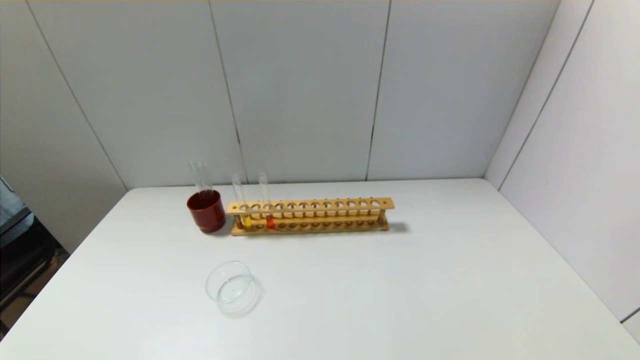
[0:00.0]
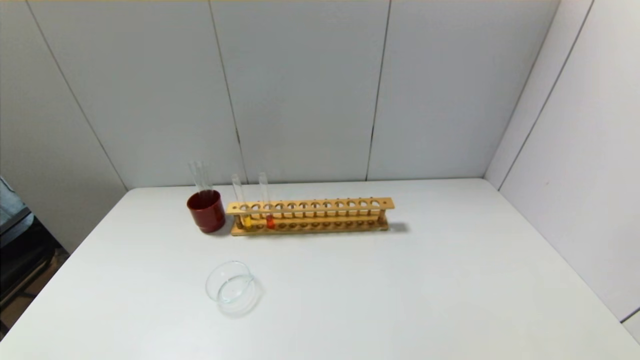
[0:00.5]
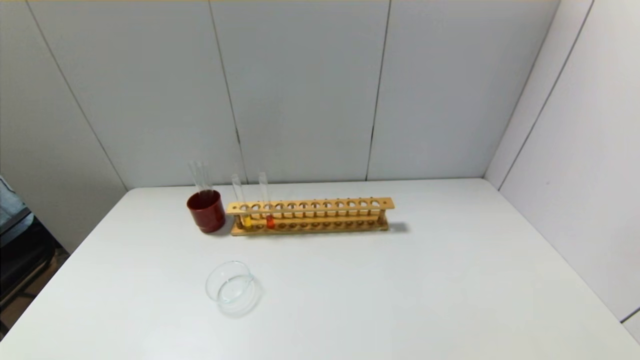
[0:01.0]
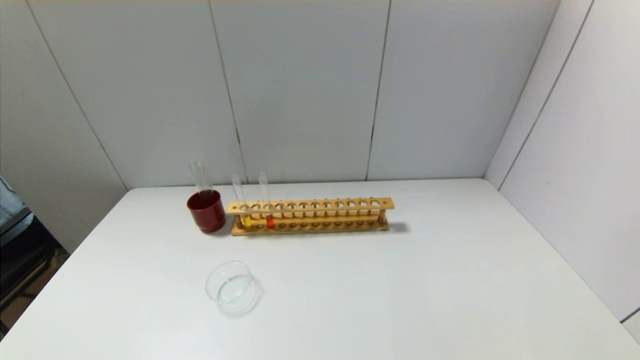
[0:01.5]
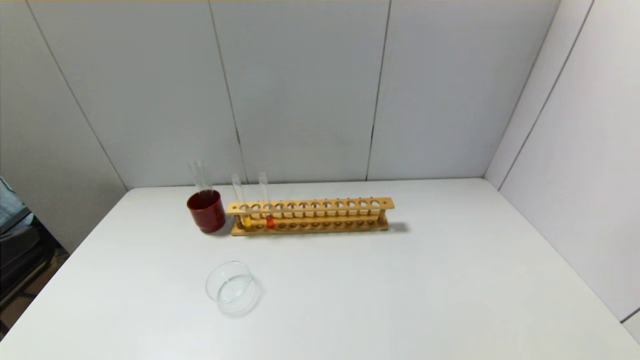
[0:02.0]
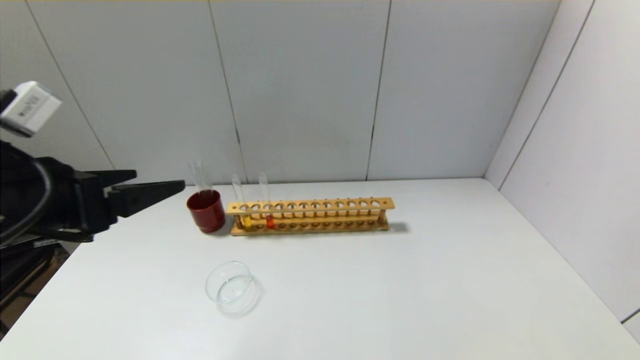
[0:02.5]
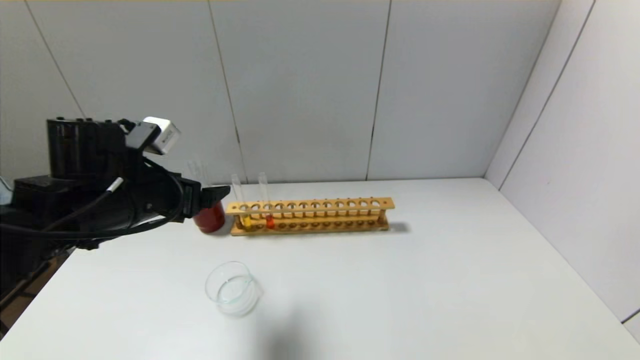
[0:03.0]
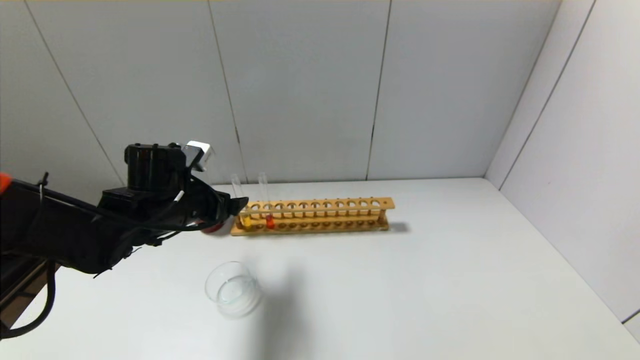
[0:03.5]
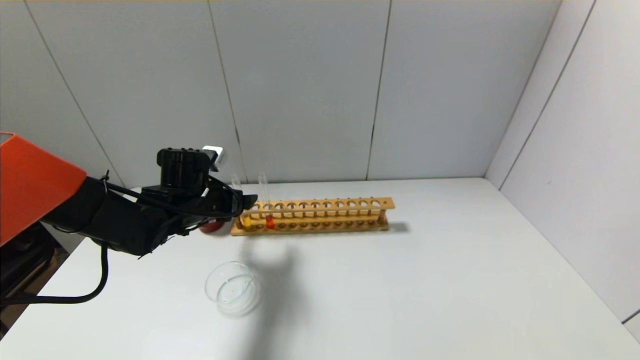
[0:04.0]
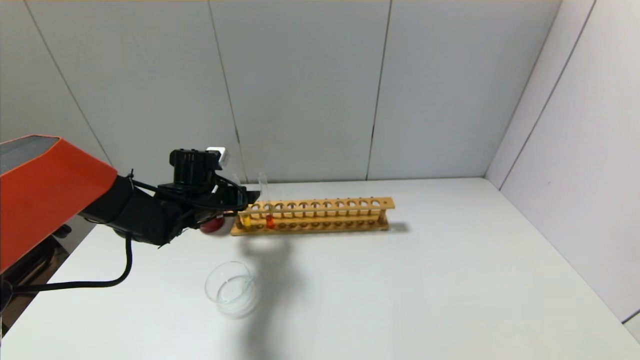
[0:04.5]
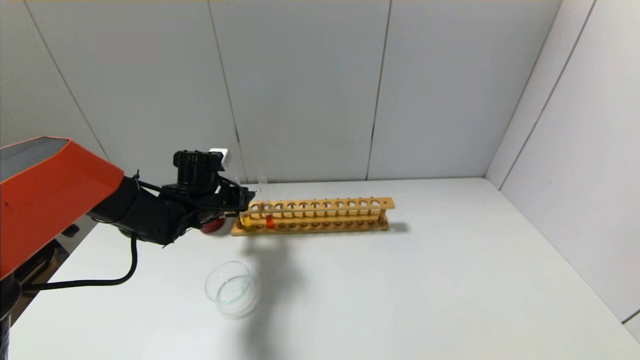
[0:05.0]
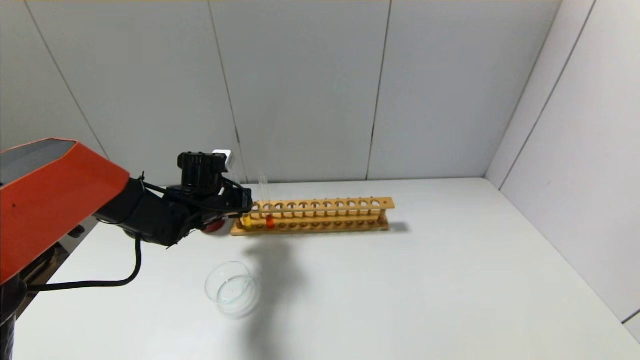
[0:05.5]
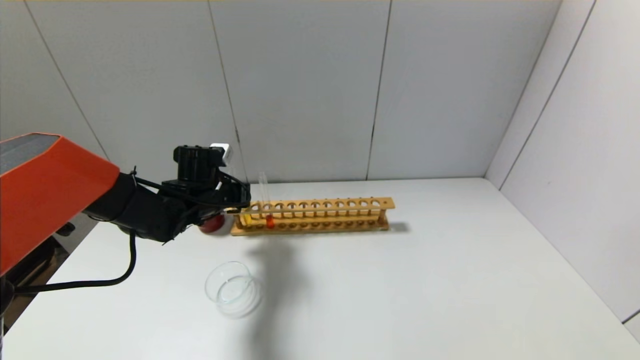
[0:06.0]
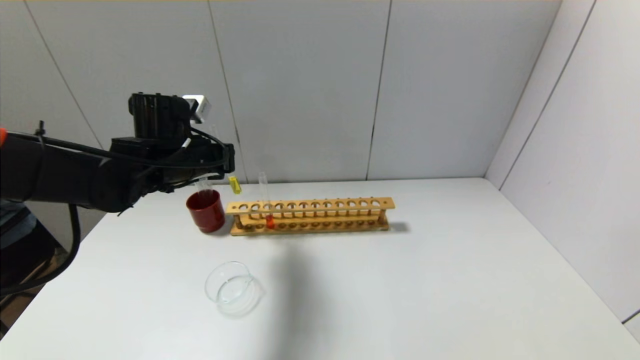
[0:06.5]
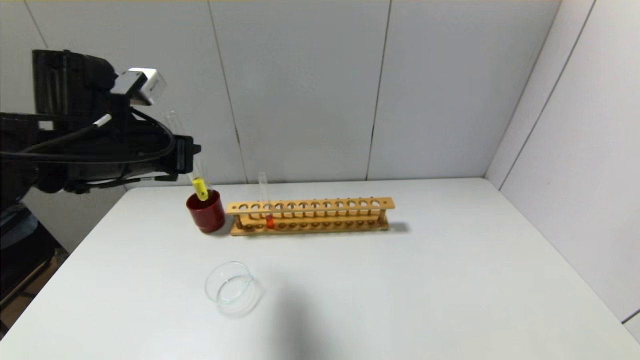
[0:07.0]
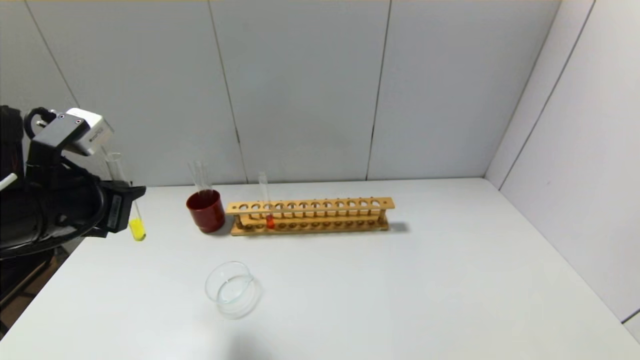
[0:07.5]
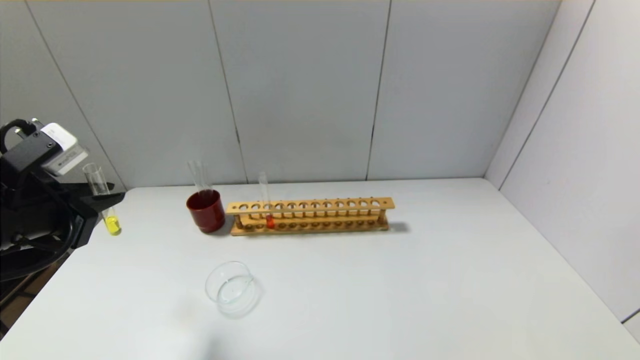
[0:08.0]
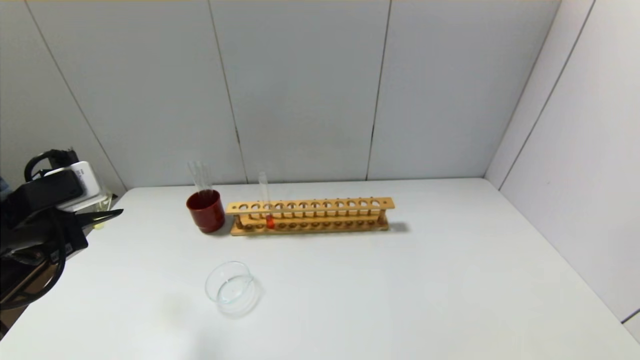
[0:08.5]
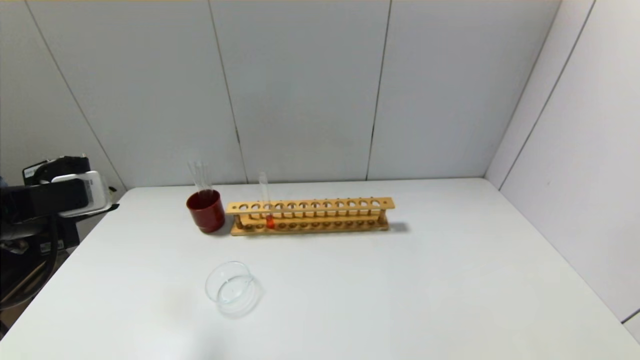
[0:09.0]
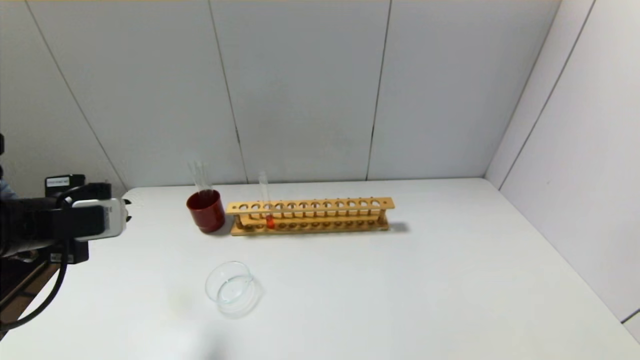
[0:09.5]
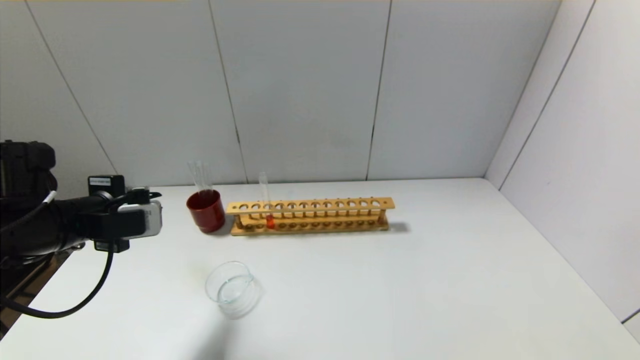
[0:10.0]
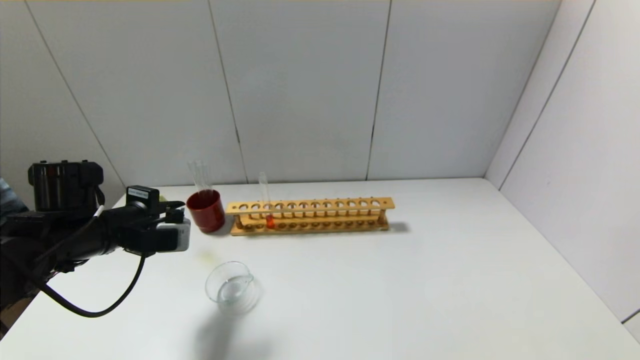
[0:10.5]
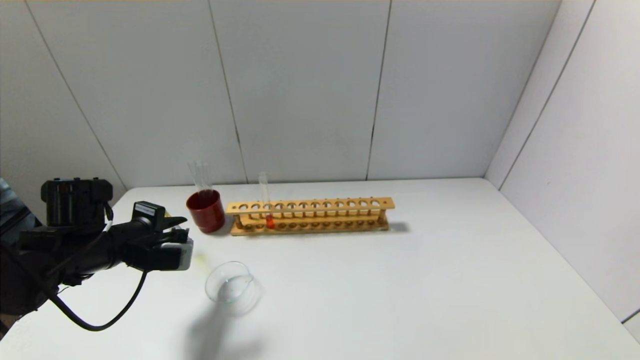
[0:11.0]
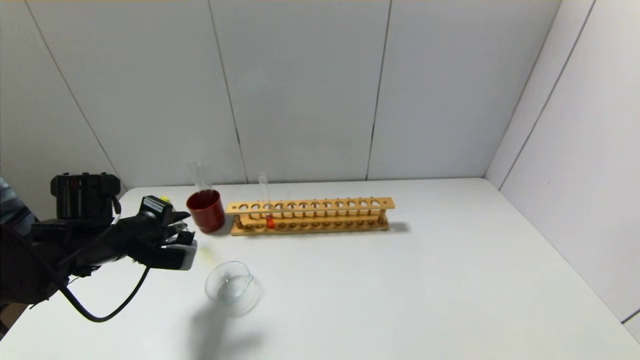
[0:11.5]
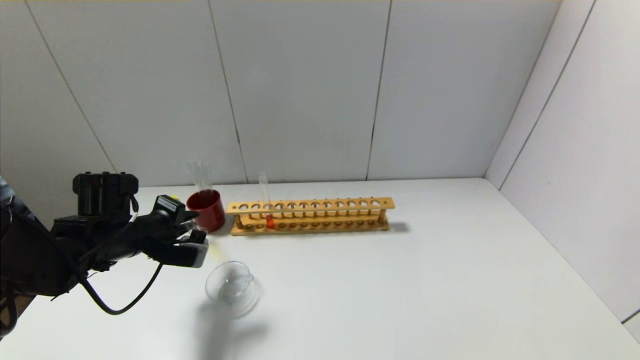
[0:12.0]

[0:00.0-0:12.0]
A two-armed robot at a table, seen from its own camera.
Step, 0:00.0 to 0:05.0: Grasp the yellow reagent with the left gripper.
0:02.0 to 0:04.0: The left gripper is displaced forward and downward by some 35 cm.
0:04.0 to 0:06.0: The left gripper closes up.
0:06.0 to 0:08.0: The left gripper goes roughly 25 cm backward, to the left and upward.
0:08.0 to 0:10.0: The left gripper moves approximately 5 cm.
0:10.0 to 0:12.0: The left gripper shifts roughly 10 cm downward and forward.

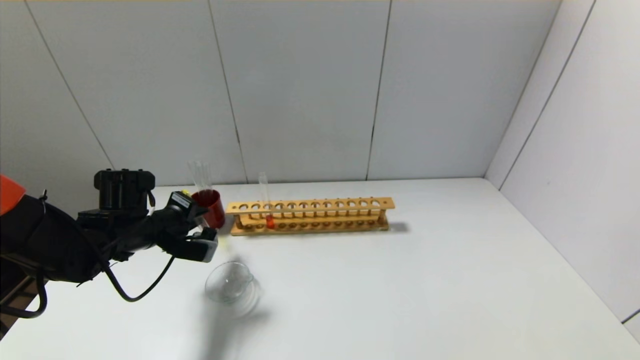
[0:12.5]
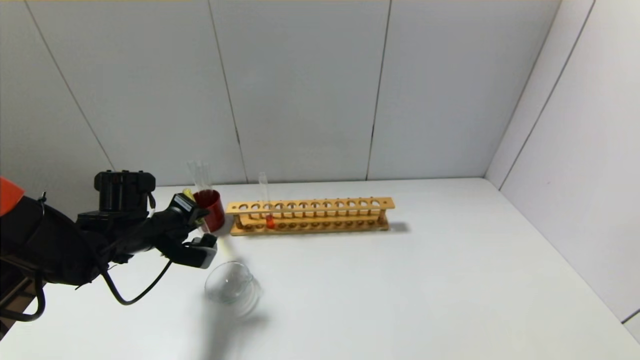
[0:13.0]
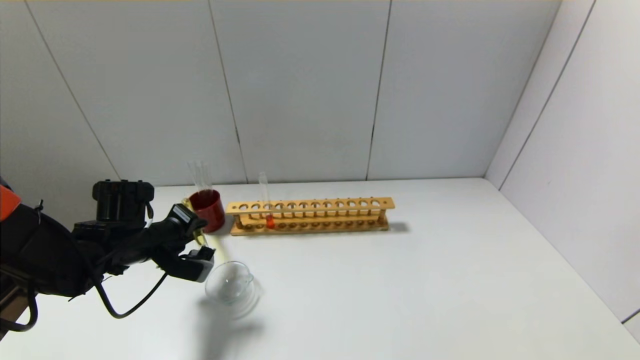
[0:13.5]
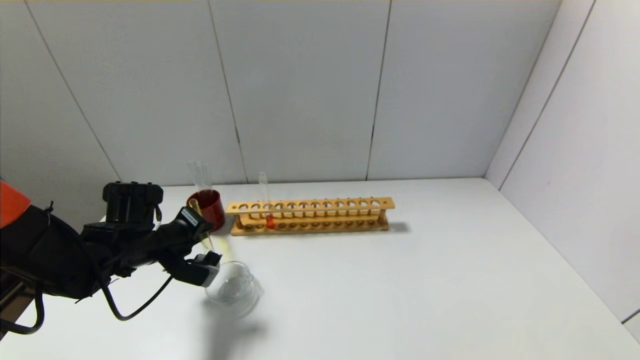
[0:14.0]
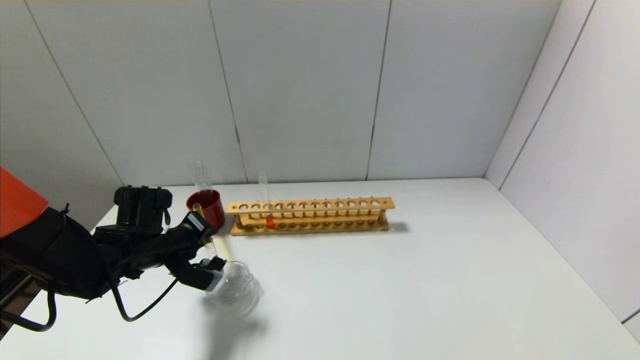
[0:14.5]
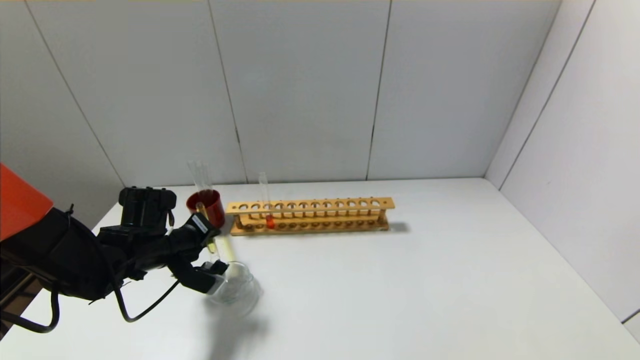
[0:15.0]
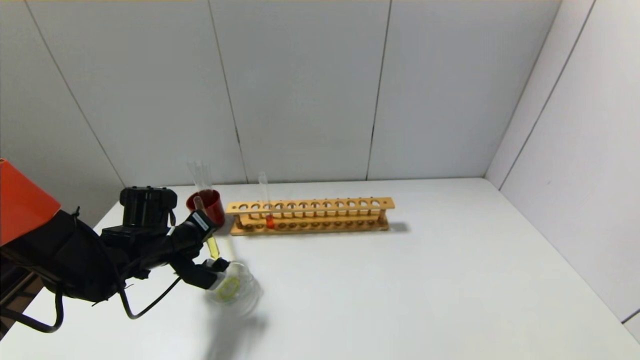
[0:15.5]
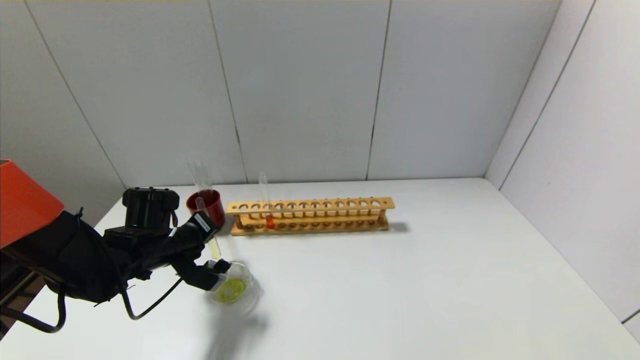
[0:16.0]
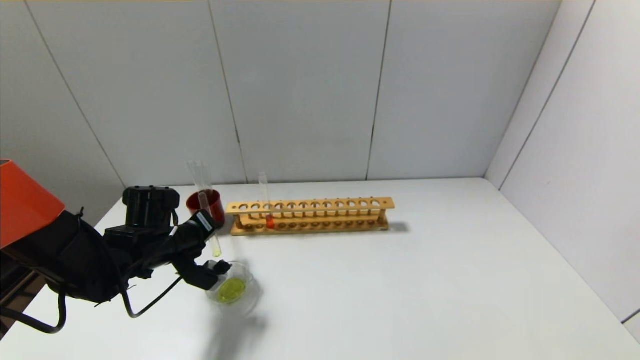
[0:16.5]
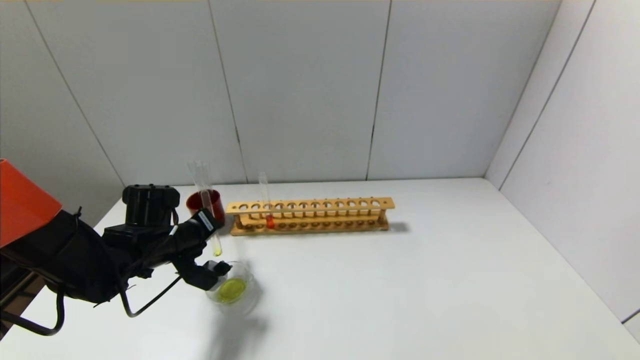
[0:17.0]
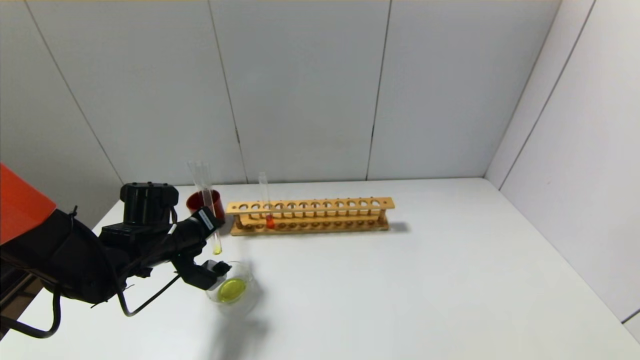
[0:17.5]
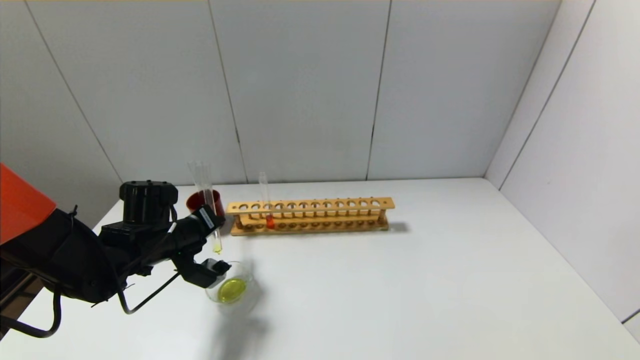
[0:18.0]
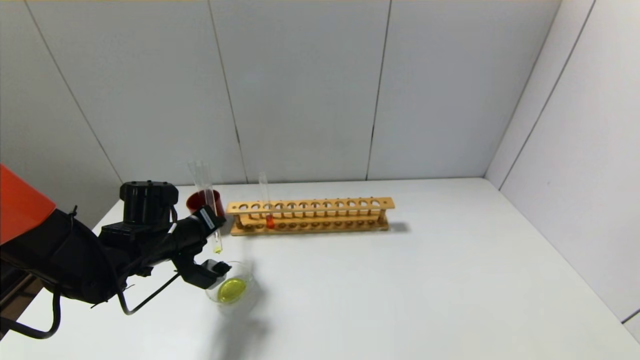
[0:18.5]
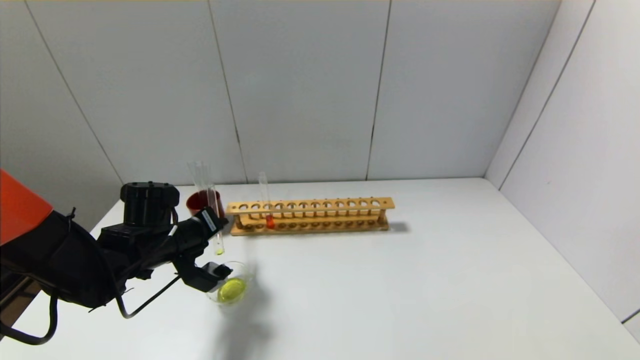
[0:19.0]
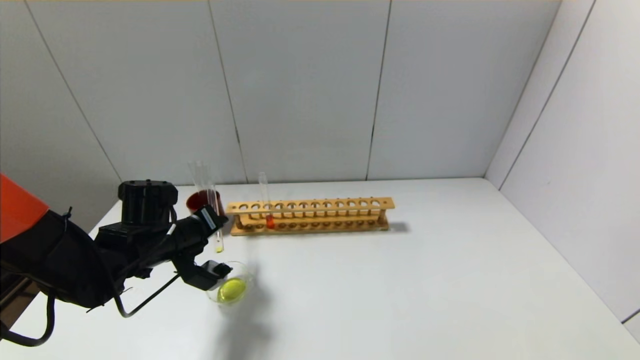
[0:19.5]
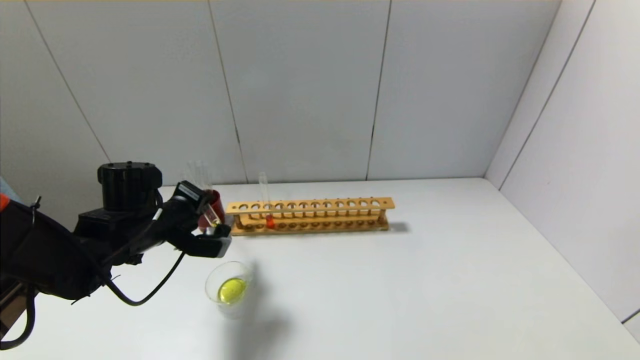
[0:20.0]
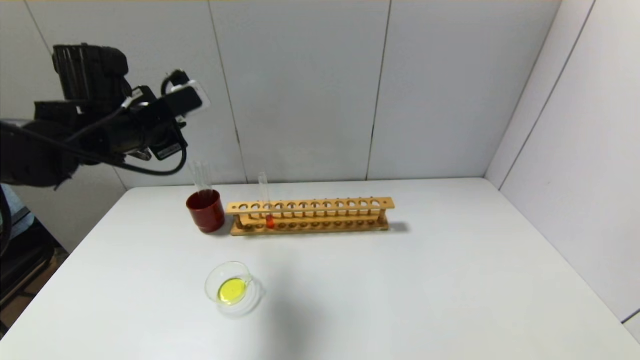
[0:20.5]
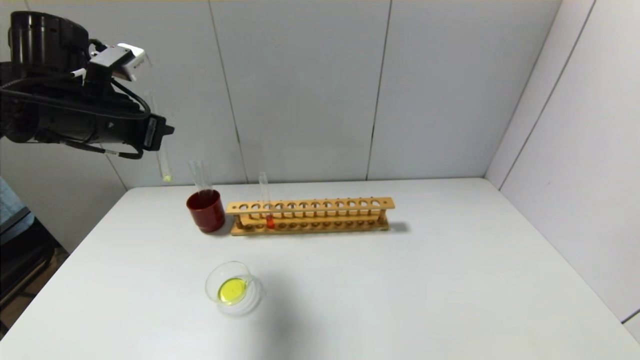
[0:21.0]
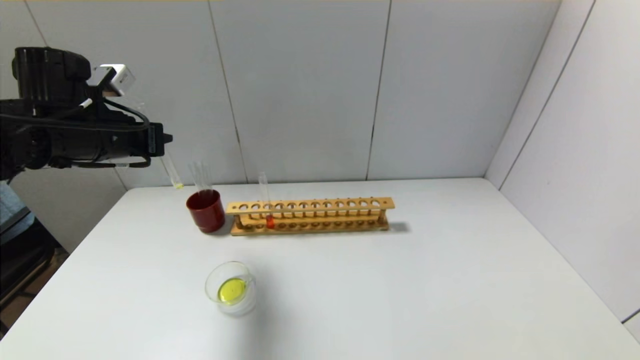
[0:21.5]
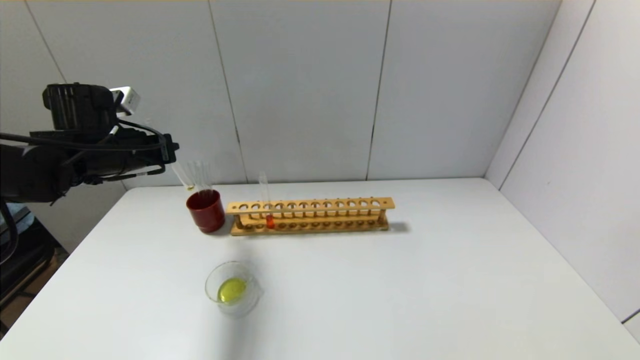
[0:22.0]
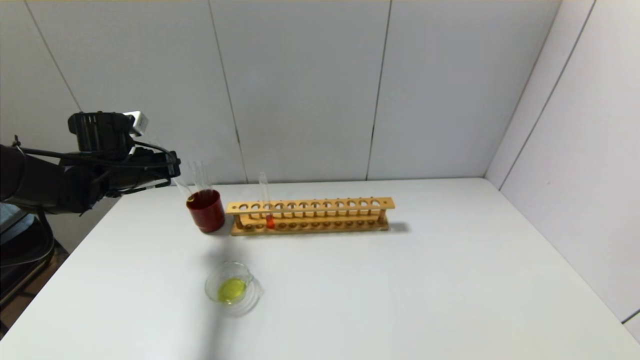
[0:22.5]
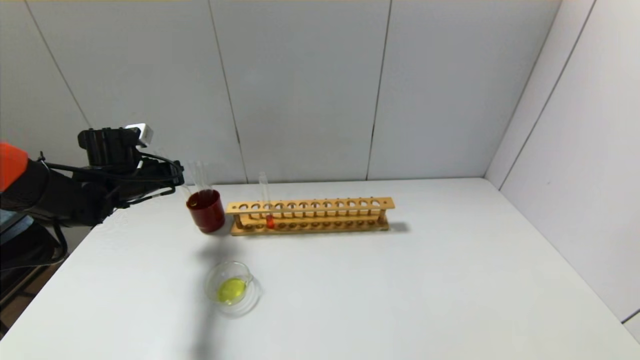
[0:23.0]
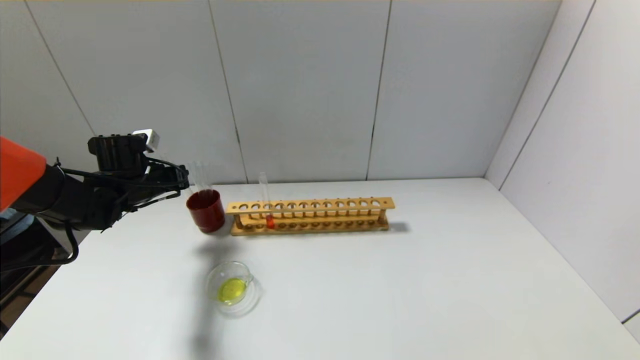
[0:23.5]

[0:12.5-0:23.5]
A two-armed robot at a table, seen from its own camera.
Step, 0:12.5 to 0:20.0: Pour the yellow reagent into the graduated cylinder with the left gripper.
0:12.5 to 0:16.0: The grippers move only a little.
0:16.0 to 0:18.0: The grippers stay close to where they were, moving slightly.
0:20.0 to 0:21.5: The left gripper travels upward by about 15 cm.
0:21.5 to 0:23.5: The left gripper shifts about 15 cm downward and forward.
